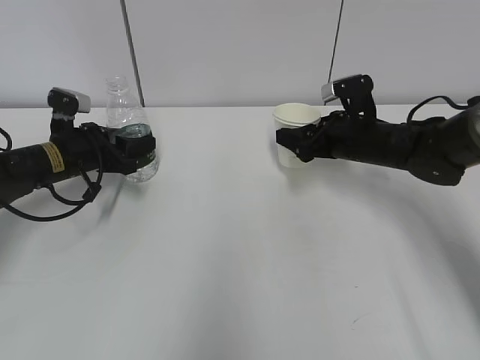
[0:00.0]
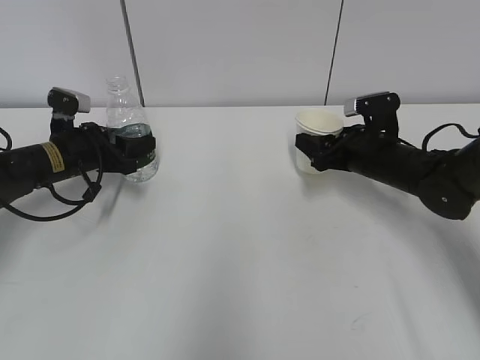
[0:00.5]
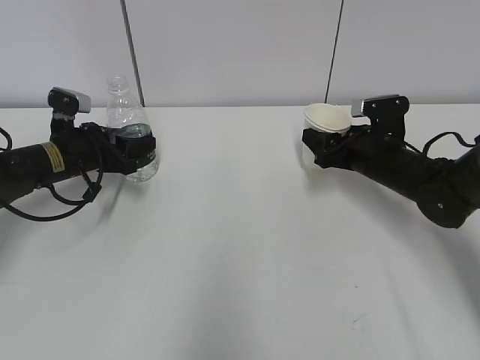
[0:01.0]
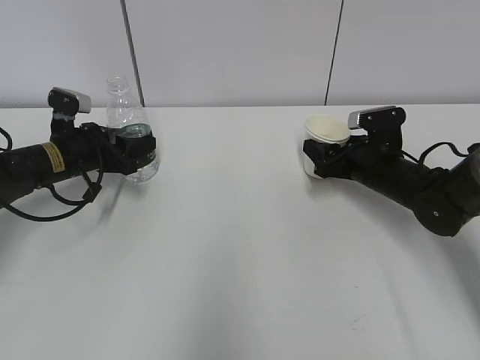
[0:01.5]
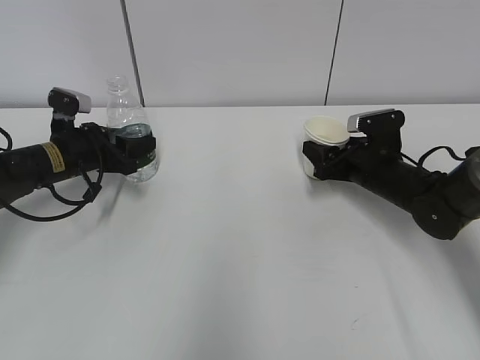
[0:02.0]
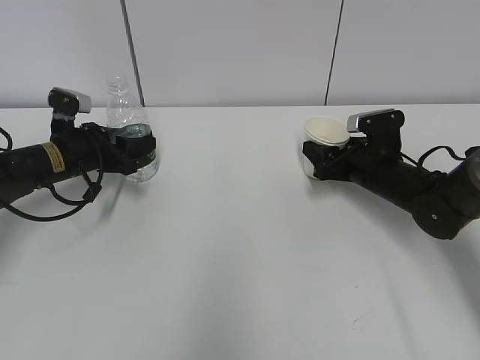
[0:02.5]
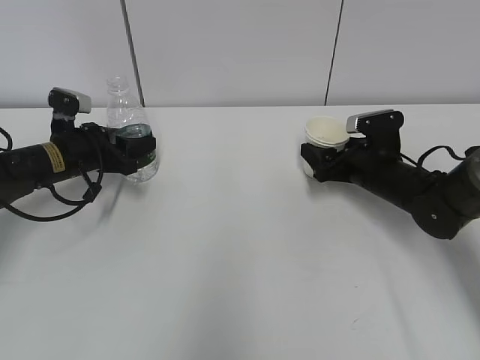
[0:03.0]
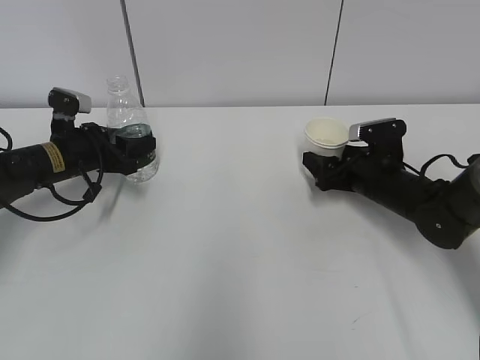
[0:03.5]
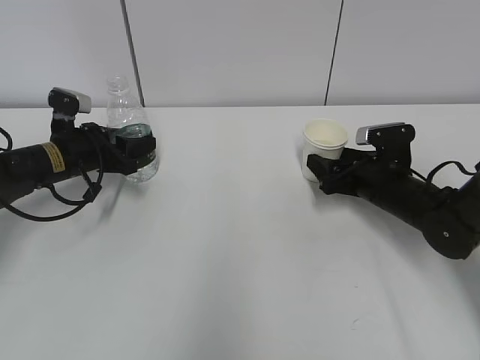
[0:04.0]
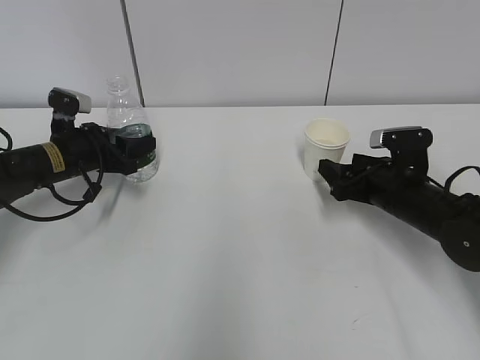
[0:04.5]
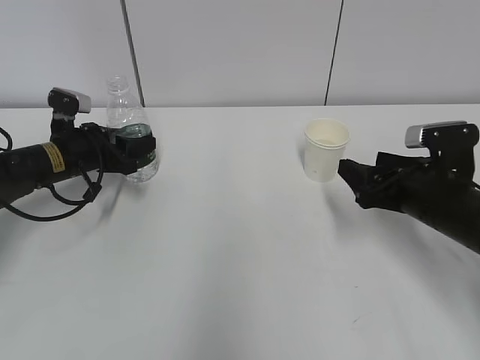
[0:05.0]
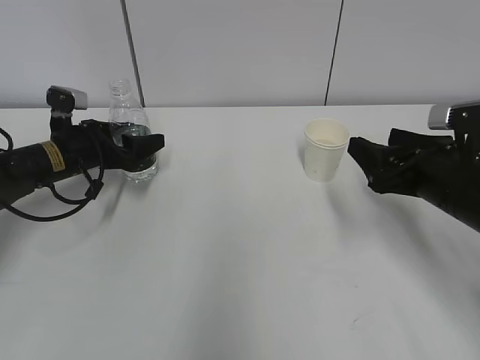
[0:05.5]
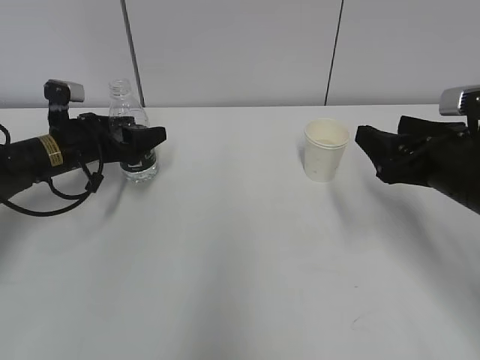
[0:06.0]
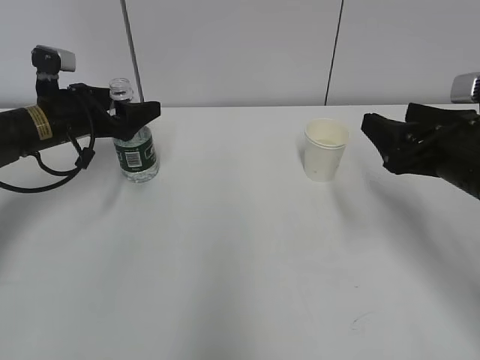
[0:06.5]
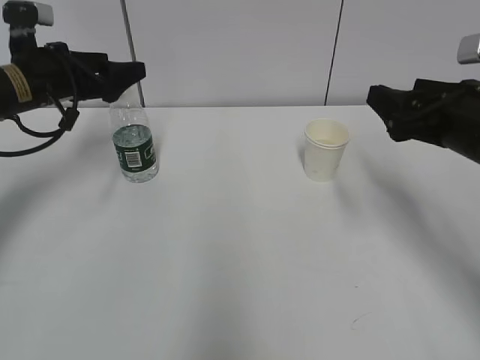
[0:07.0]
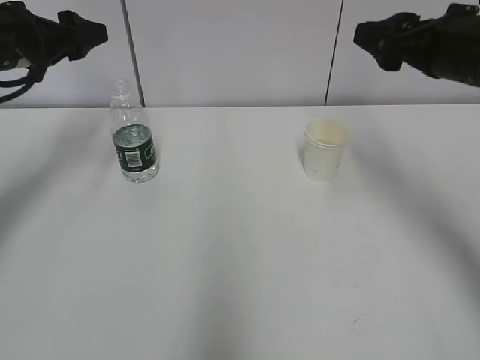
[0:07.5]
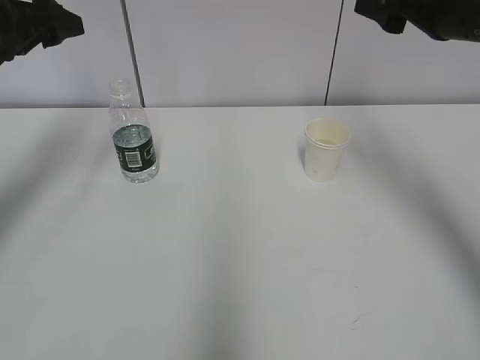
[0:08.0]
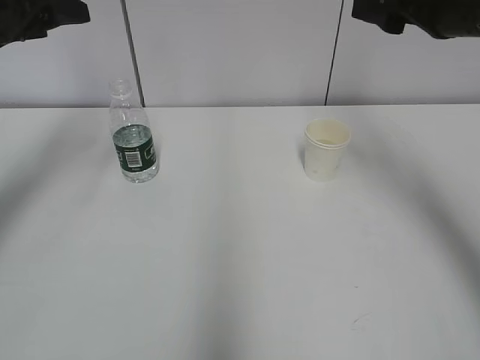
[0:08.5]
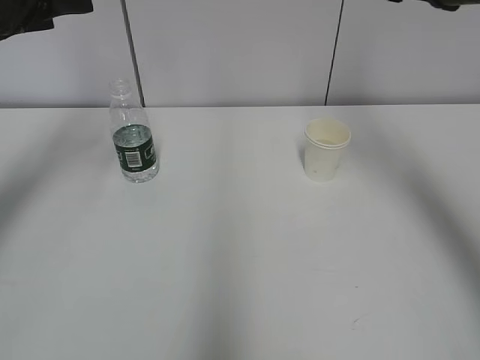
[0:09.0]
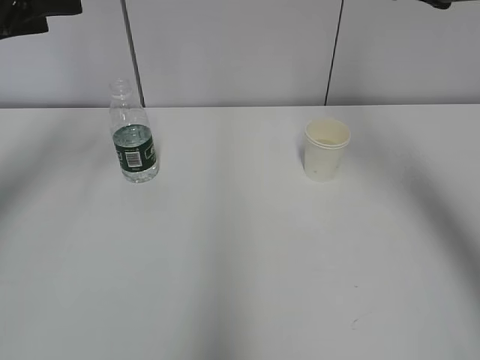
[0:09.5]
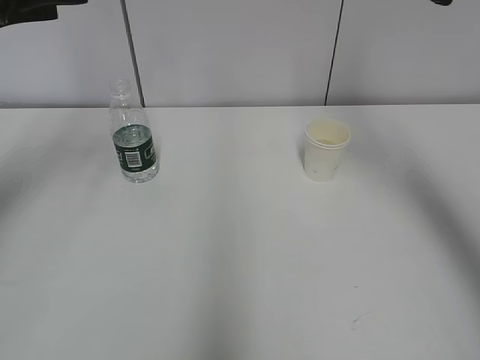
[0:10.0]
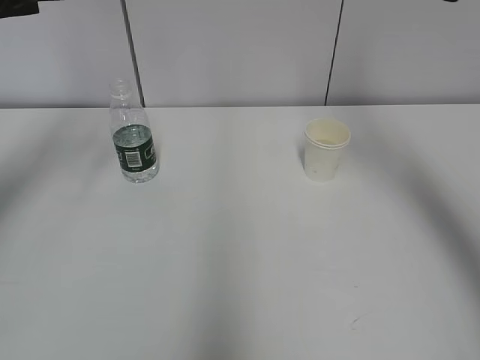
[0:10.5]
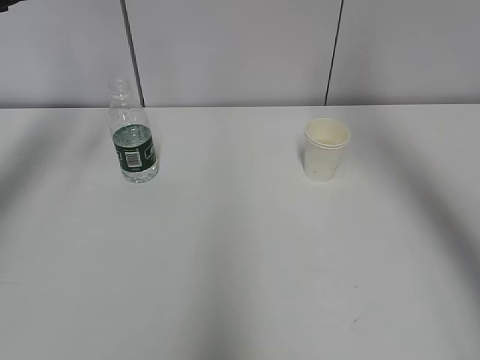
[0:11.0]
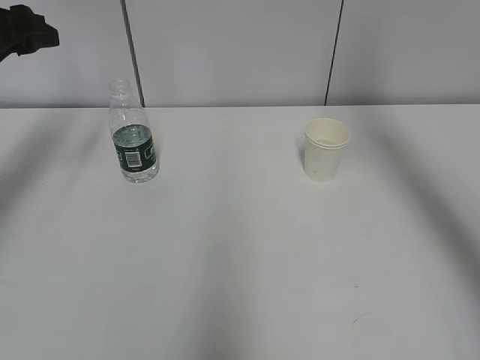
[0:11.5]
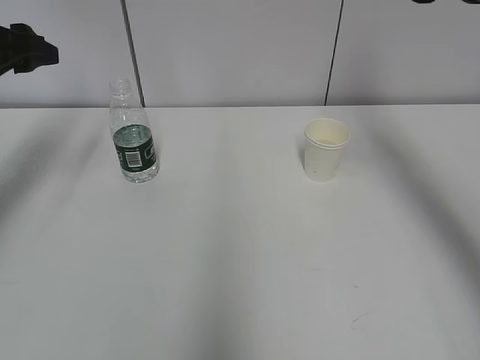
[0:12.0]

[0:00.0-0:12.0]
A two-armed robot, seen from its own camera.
0:00.0 to 0:02.0: The right gripper ends up some 5 cm from where it was.
0:02.0 to 0:04.0: The right gripper opens.
0:04.0 to 0:06.0: The right gripper moves upward and backward, roughly 15 cm, while the left gripper opens its fingers.
0:06.0 to 0:08.0: The left gripper travels upward by some 20 cm. Meanwhile the right gripper travels upward and forward by about 15 cm.
0:08.0 to 0:10.0: The left gripper shifts by about 5 cm.
0:10.0 to 0:12.0: The left gripper shifts approximately 5 cm downward.

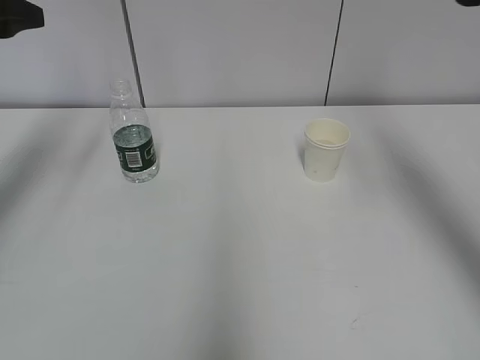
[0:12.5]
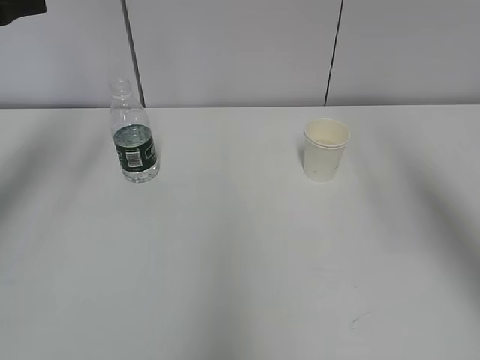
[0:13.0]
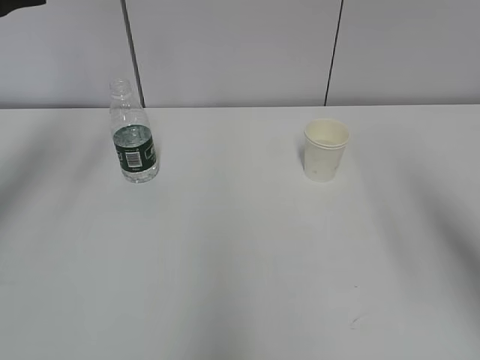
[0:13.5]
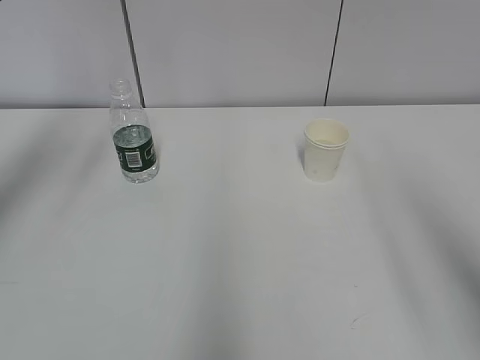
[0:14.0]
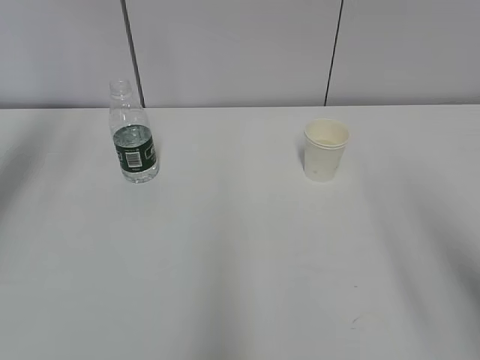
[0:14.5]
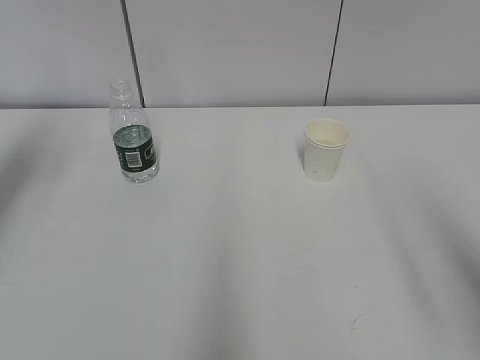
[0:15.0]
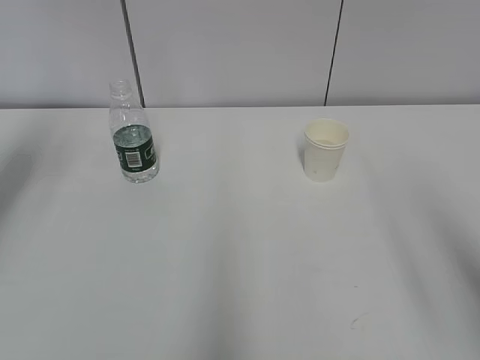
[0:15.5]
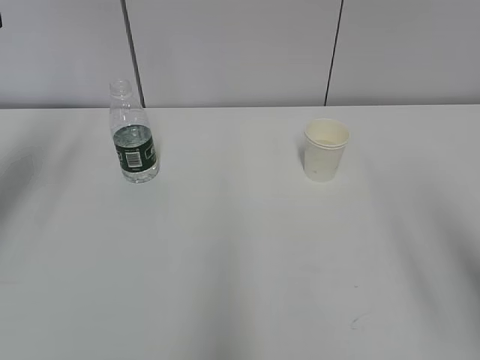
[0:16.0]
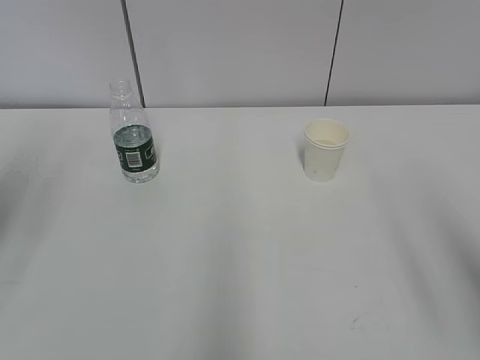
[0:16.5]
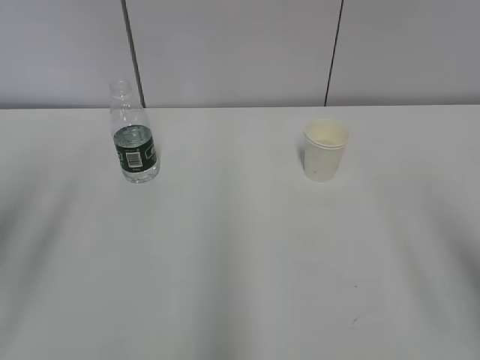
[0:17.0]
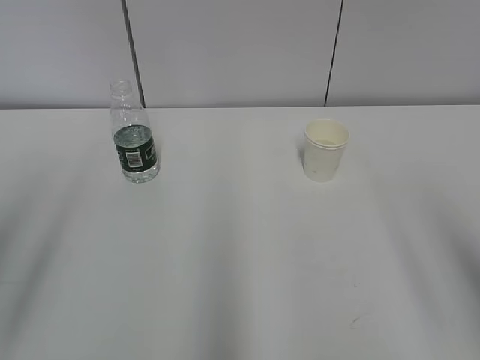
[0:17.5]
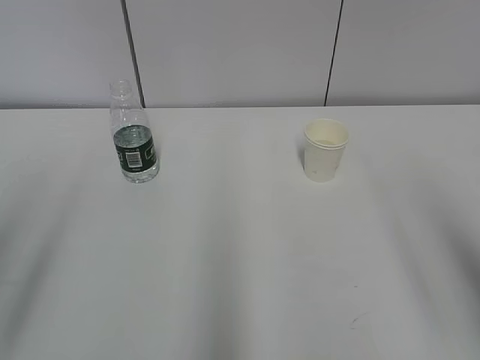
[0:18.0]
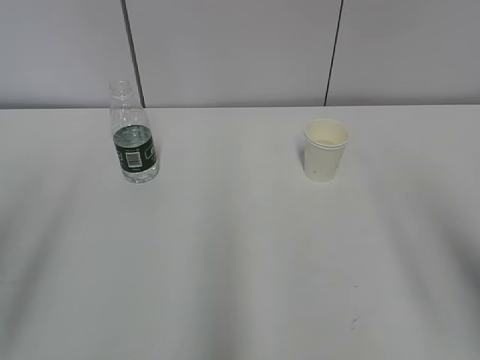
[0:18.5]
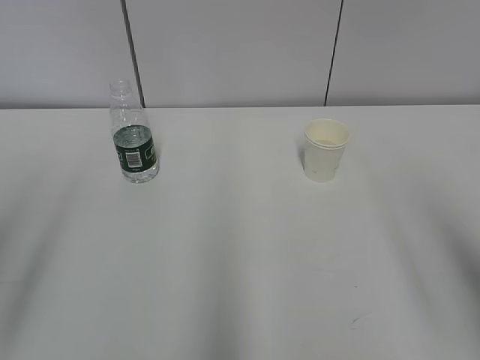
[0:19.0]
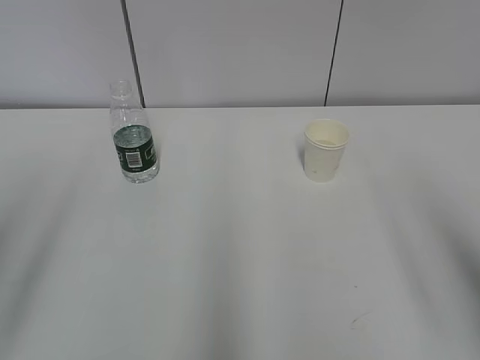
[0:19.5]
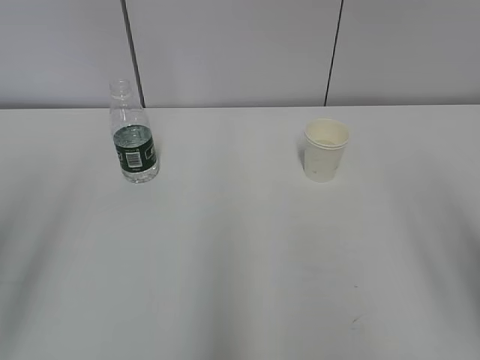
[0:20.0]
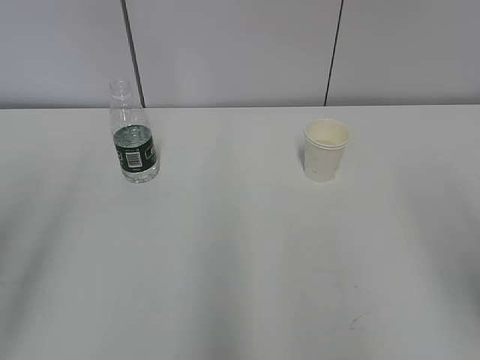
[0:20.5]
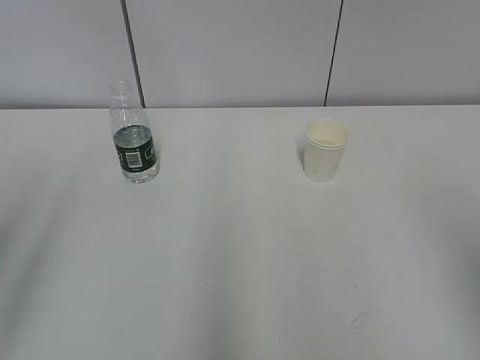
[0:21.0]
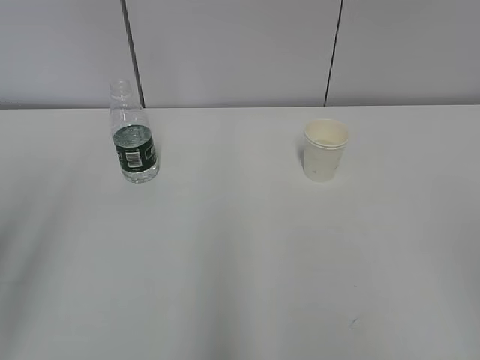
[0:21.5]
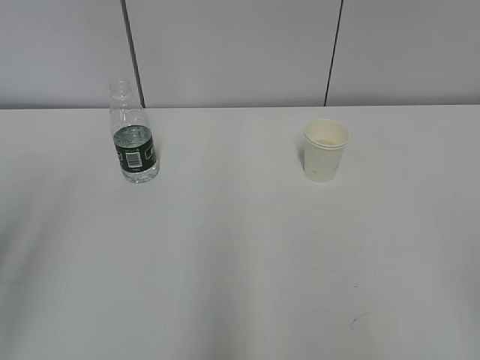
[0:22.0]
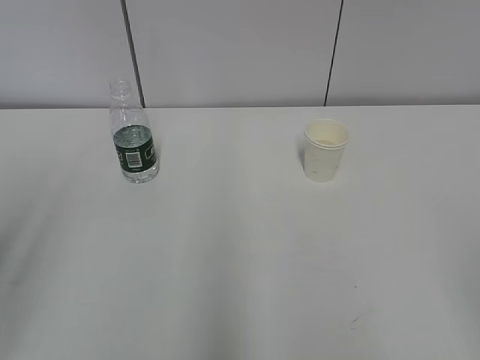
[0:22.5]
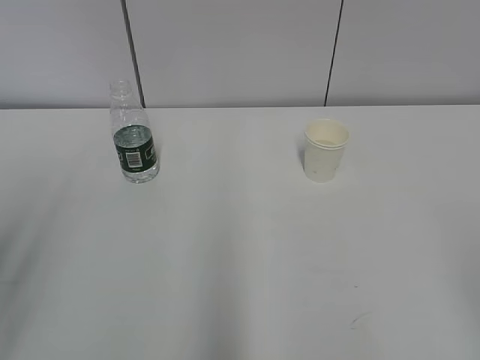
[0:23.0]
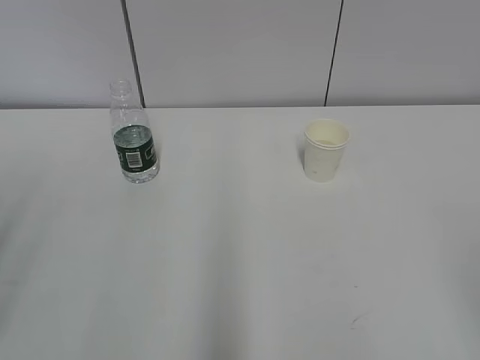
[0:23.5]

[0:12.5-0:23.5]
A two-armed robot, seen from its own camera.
0:12.5 to 0:14.5: The right gripper goes approximately 20 cm backward.
0:16.0 to 0:18.0: The left gripper goes roughly 25 cm backward.

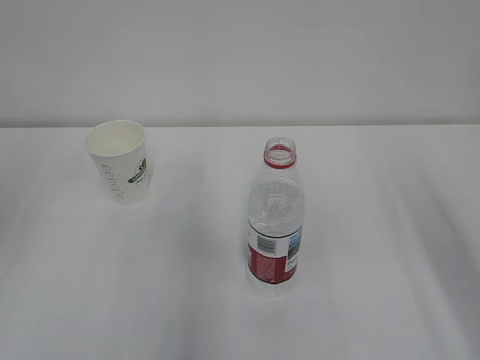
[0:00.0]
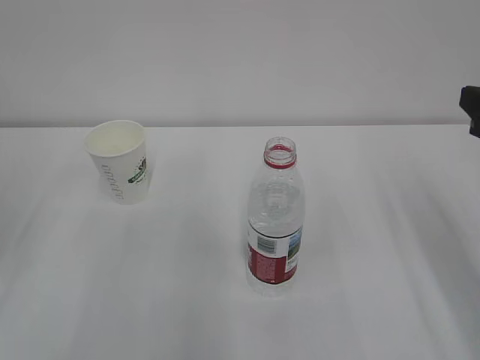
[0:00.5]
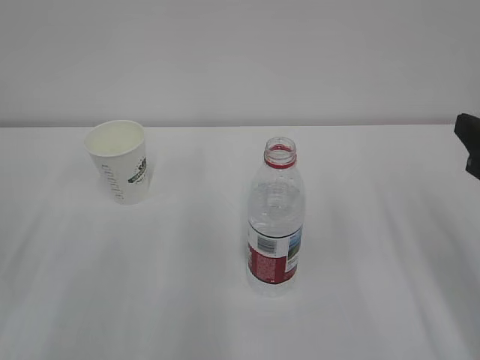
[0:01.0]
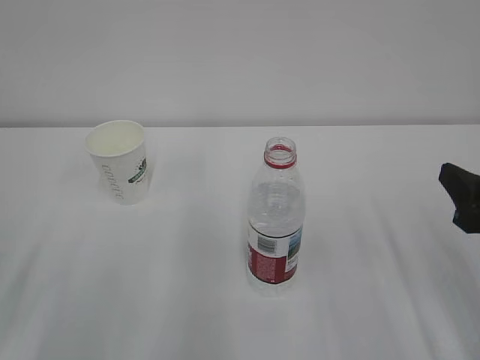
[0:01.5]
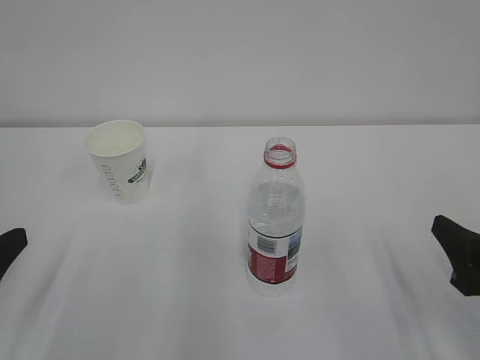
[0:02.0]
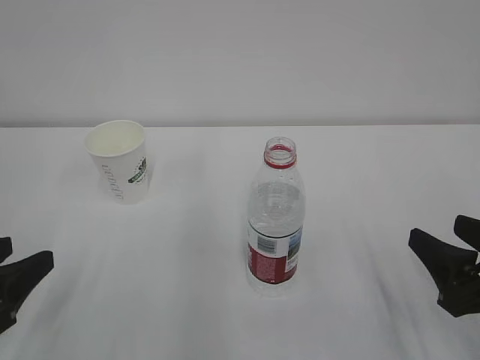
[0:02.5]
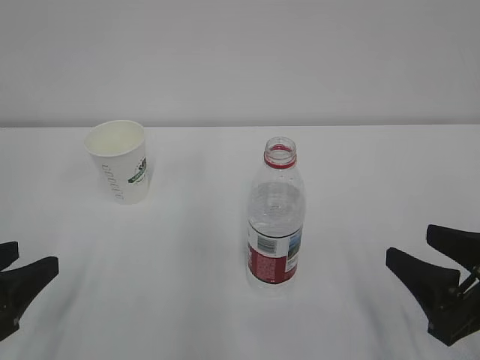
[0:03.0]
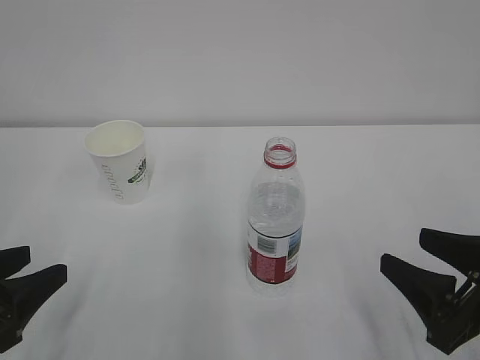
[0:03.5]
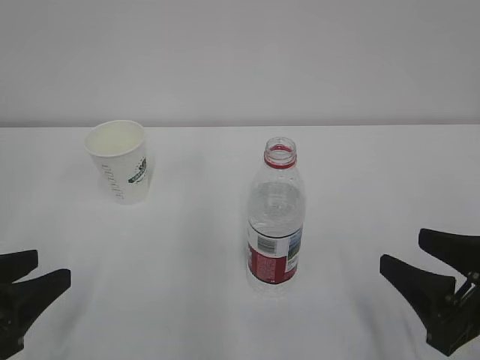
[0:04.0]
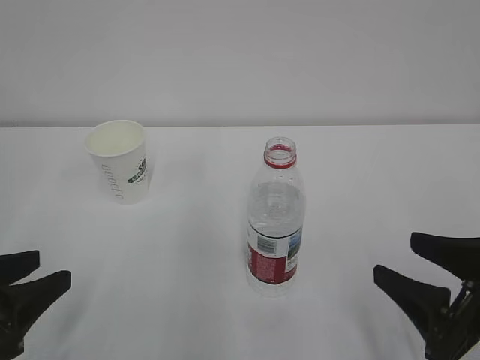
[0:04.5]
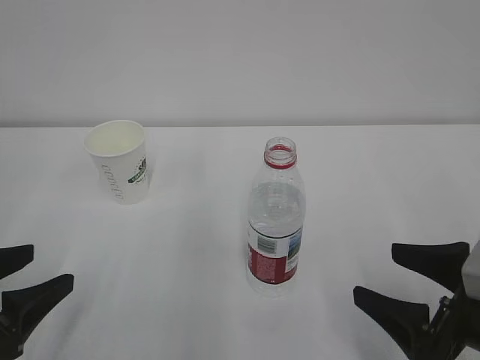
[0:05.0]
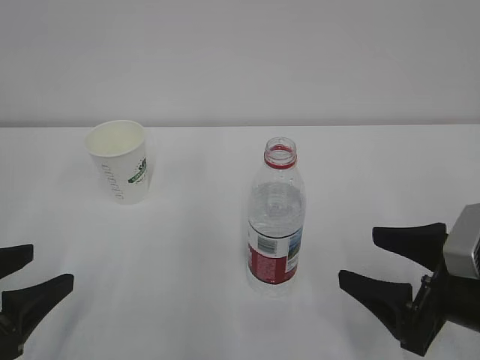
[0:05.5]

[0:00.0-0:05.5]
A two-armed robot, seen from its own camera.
0:00.0 to 0:02.0: The two grippers go about 15 cm downward and backward.
0:03.5 to 0:05.5: The right gripper opens its fingers.
